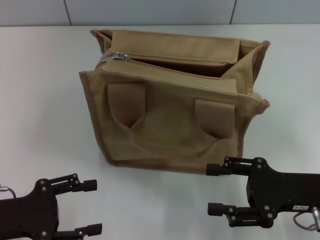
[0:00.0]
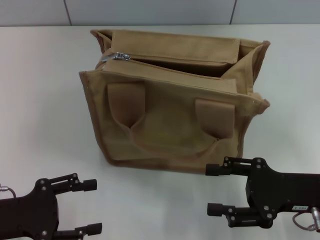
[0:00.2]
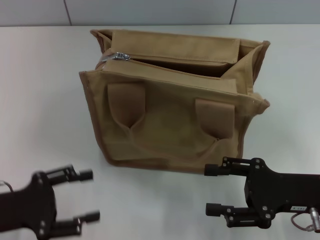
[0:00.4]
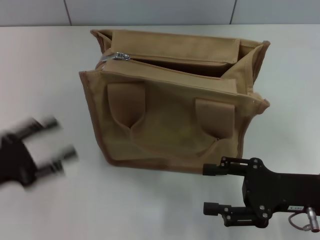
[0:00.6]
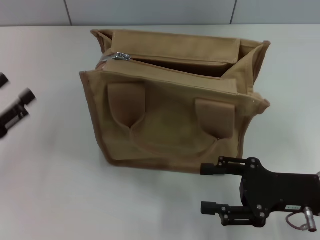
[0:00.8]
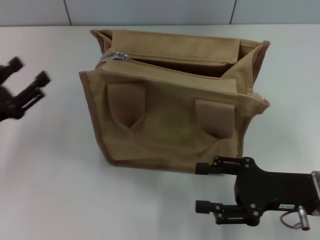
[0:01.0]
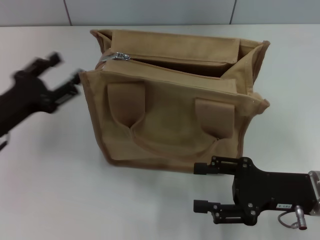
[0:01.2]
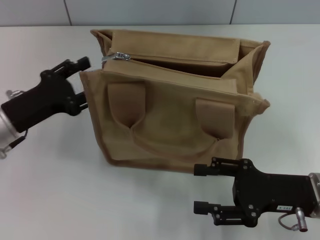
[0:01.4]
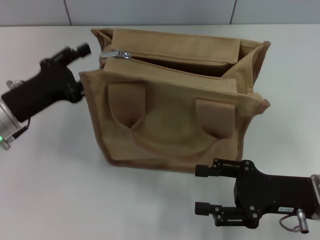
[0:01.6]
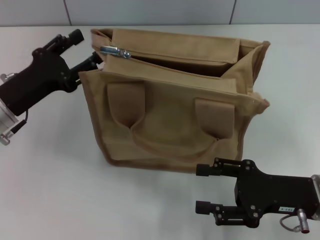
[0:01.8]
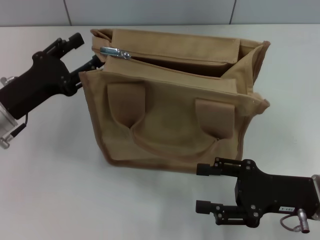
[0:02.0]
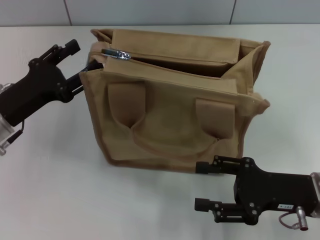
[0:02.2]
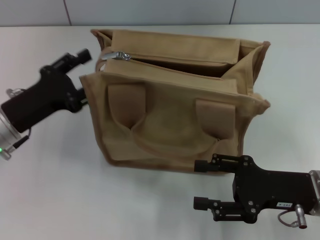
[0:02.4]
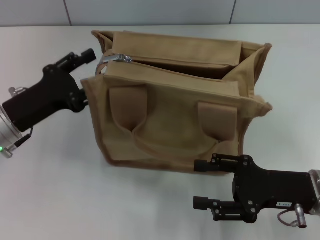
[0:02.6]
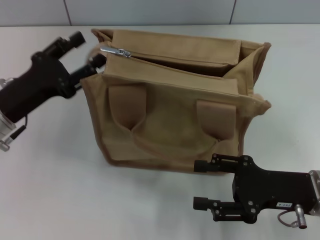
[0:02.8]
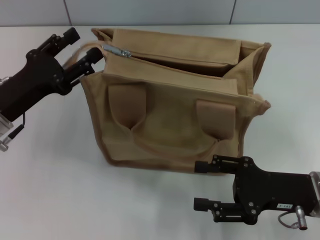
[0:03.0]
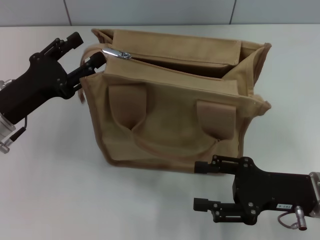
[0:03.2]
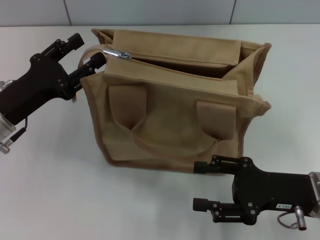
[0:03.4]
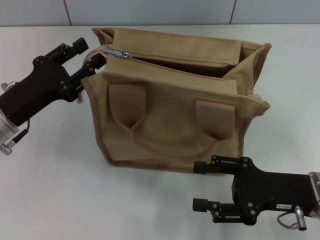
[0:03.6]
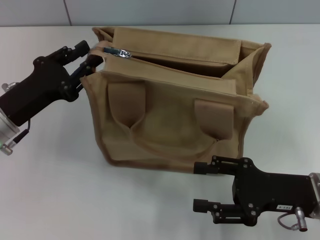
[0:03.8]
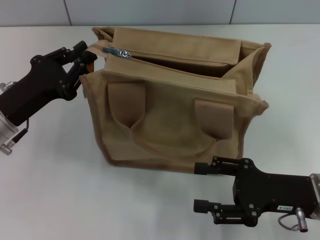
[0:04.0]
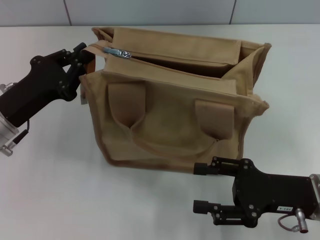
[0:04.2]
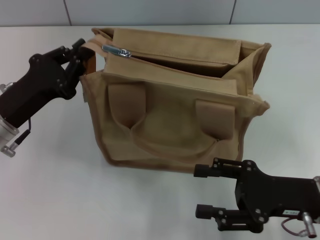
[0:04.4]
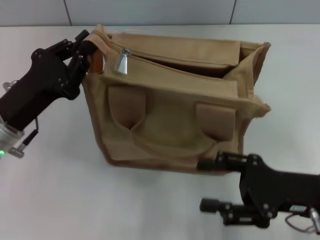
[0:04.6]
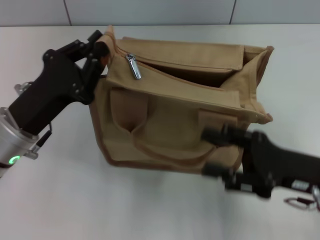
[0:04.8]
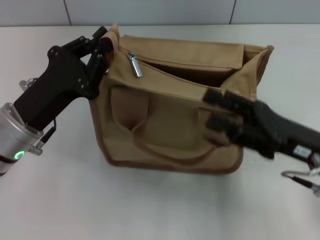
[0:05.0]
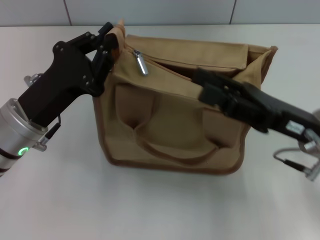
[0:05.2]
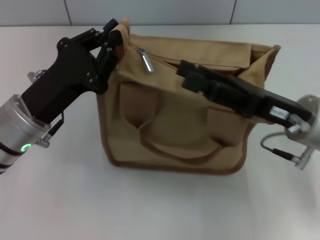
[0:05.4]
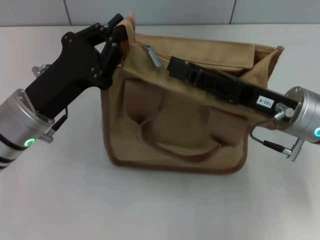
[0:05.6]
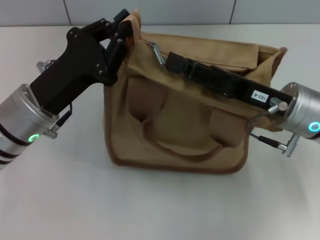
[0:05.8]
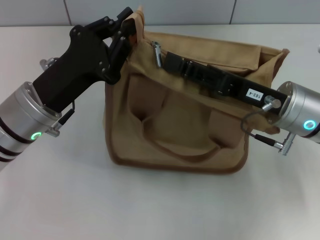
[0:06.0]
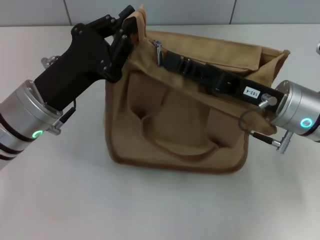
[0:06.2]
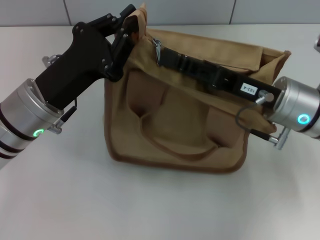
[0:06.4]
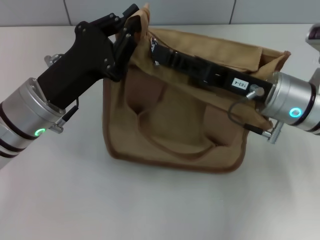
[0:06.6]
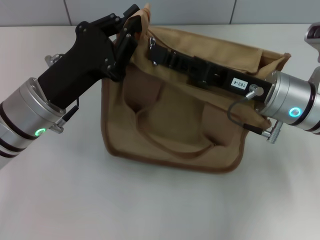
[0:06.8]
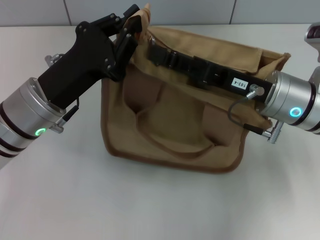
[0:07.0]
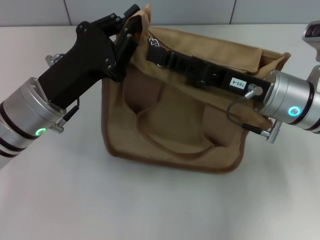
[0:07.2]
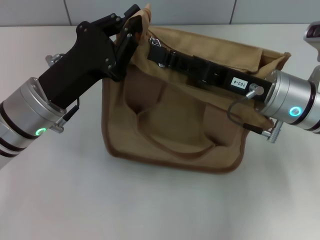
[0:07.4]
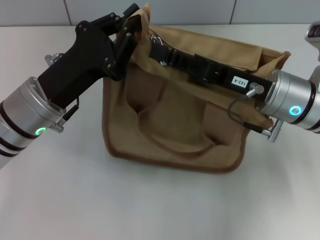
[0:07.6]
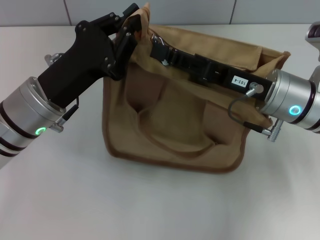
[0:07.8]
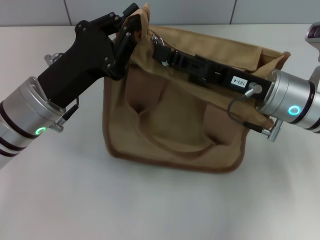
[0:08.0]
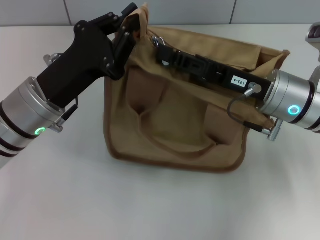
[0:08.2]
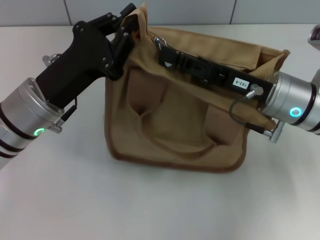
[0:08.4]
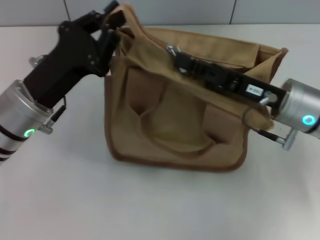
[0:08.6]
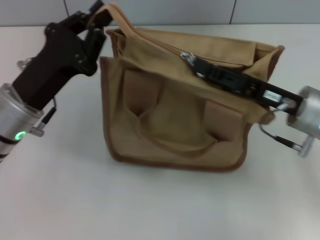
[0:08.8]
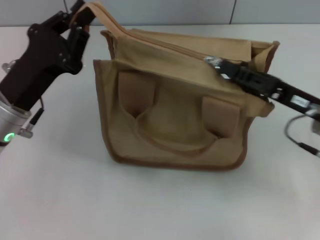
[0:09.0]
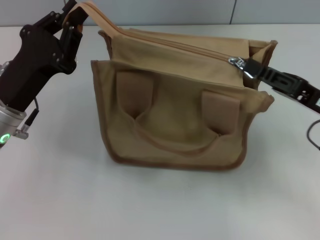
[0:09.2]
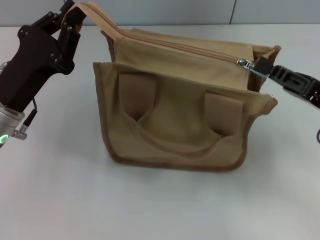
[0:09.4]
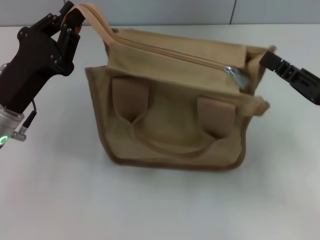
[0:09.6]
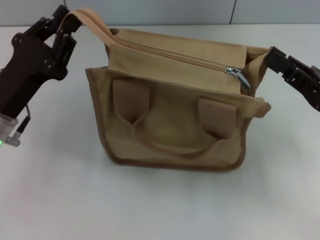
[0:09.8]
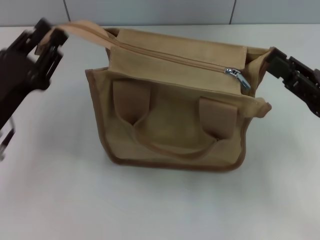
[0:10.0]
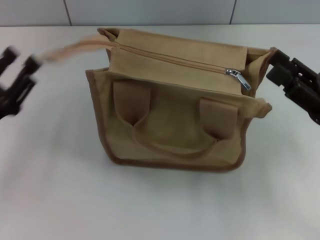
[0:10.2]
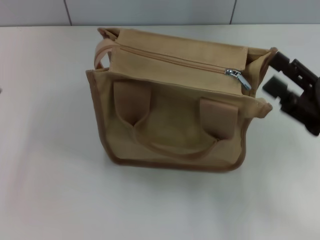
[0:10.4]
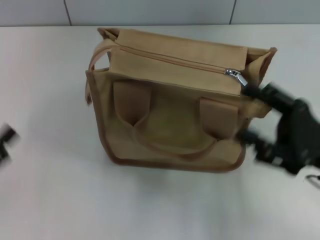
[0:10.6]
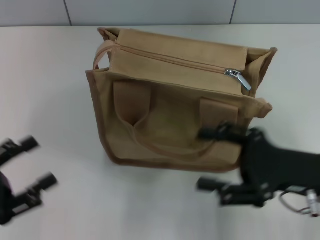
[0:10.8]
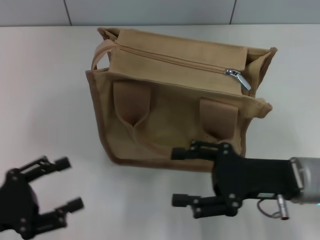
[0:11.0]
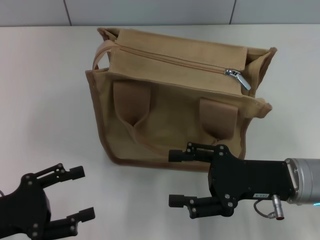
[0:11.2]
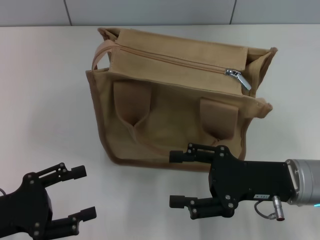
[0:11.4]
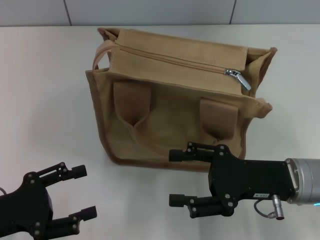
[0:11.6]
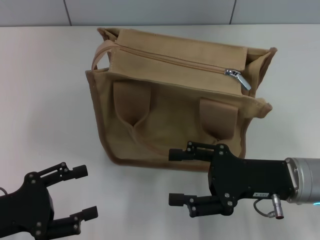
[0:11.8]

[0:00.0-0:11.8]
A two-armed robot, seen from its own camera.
Step, 0:00.0 to 0:09.6: Pull up the zipper with your right hand.
Step, 0:09.8 to 0:10.2: Grab the zipper with your left hand.
0:00.0 to 0:01.4: The left gripper is displaced forward by approximately 10 cm.
0:01.4 to 0:03.0: There are only small adjustments of the grippers.
0:03.0 to 0:04.4: The left gripper closes.
0:04.4 to 0:06.0: The left gripper heads to the right, covering some 5 cm. The right gripper shifts some 10 cm forward, to the left and upward, and closes up.
0:06.0 to 0:07.4: The grippers stay close to where they were, moving slightly.
0:07.4 to 0:08.8: The right gripper shifts by about 5 cm, and closes up.
0:08.8 to 0:10.4: The right gripper is displaced backward and to the right by about 10 cm, and opens its fingers. Meanwhile the left gripper is displaced to the left and backward by some 15 cm, and opens.
0:10.4 to 0:11.8: The right gripper moves to the left, about 5 cm.

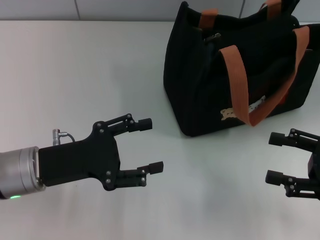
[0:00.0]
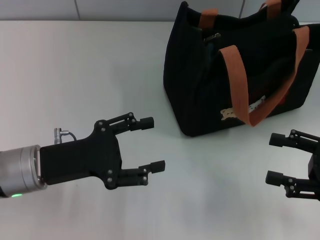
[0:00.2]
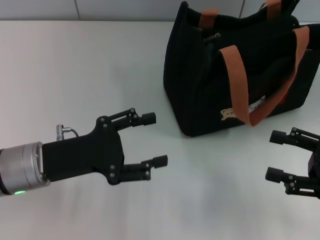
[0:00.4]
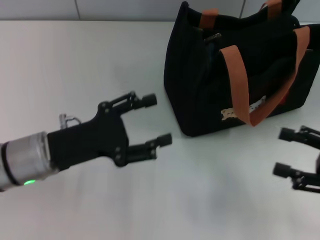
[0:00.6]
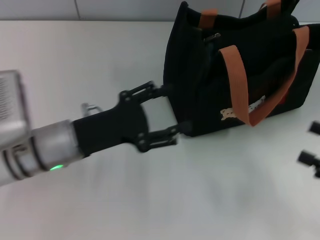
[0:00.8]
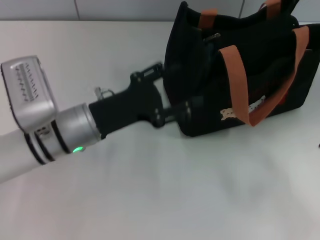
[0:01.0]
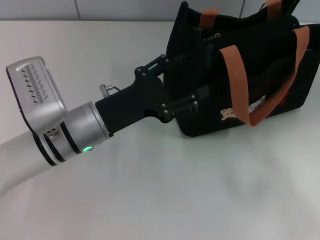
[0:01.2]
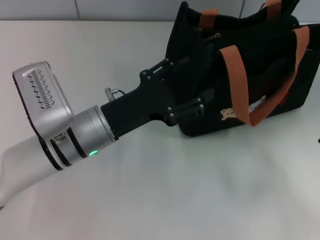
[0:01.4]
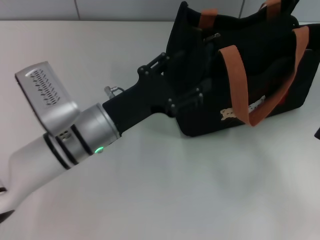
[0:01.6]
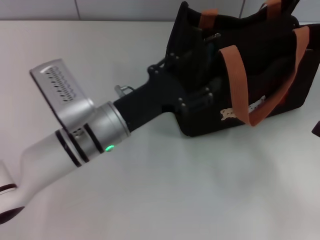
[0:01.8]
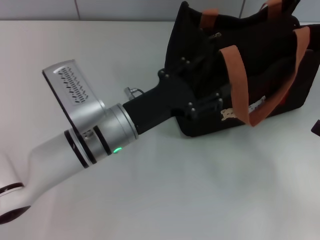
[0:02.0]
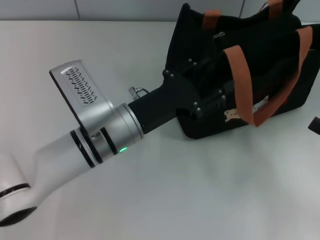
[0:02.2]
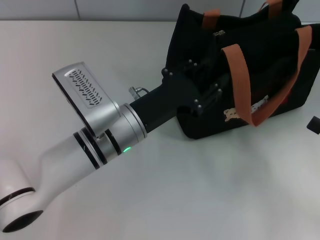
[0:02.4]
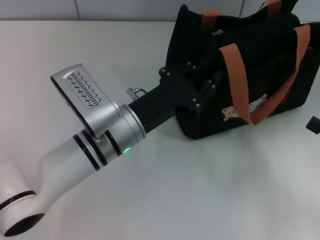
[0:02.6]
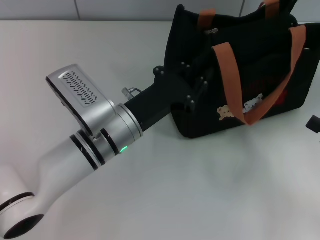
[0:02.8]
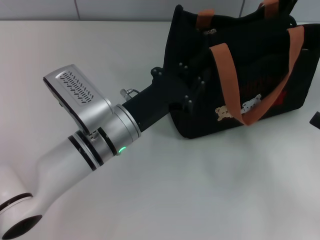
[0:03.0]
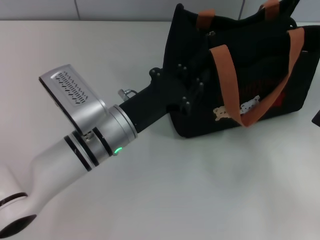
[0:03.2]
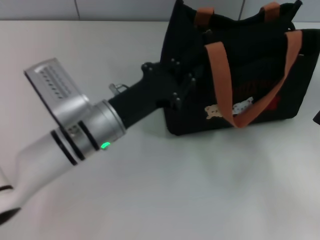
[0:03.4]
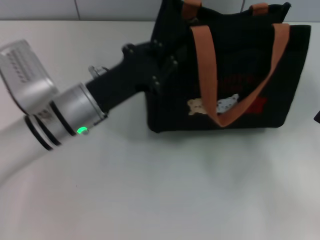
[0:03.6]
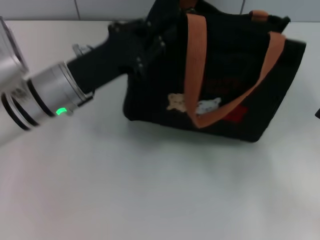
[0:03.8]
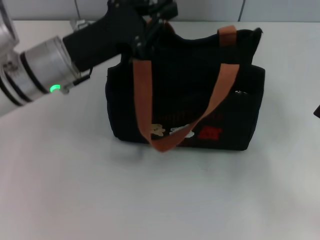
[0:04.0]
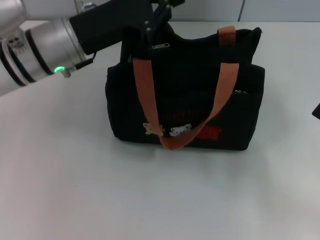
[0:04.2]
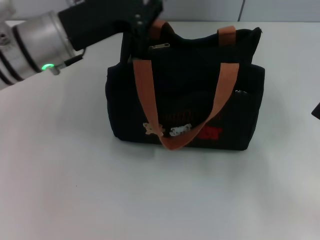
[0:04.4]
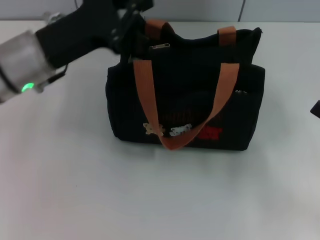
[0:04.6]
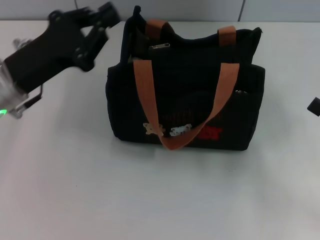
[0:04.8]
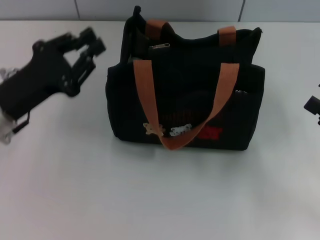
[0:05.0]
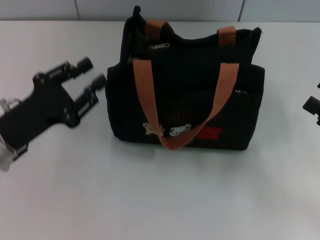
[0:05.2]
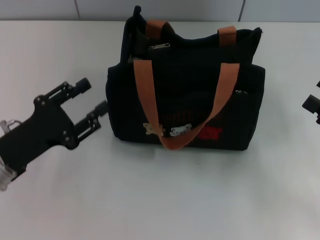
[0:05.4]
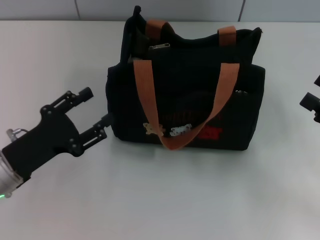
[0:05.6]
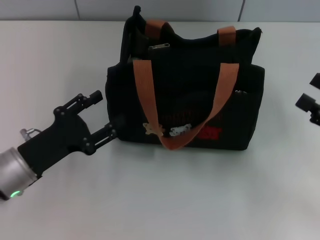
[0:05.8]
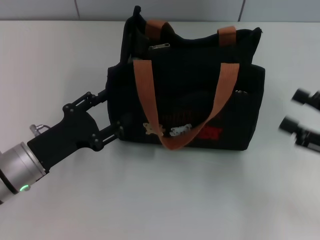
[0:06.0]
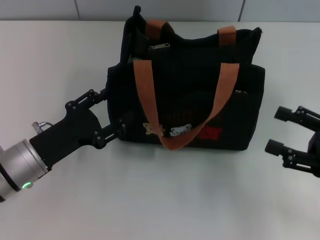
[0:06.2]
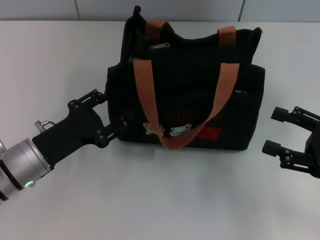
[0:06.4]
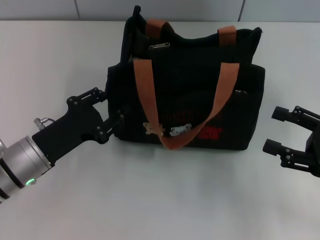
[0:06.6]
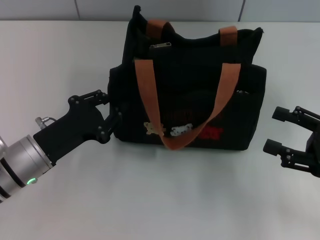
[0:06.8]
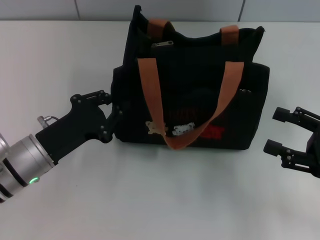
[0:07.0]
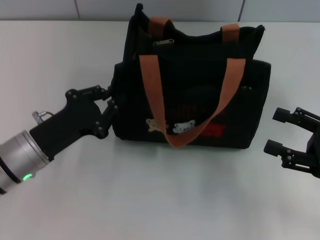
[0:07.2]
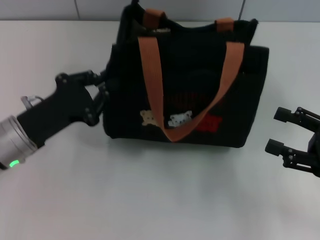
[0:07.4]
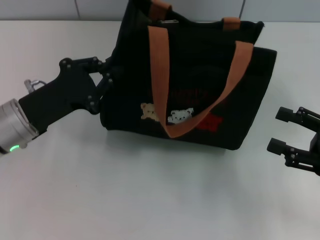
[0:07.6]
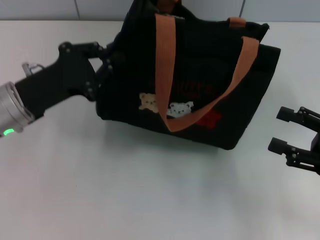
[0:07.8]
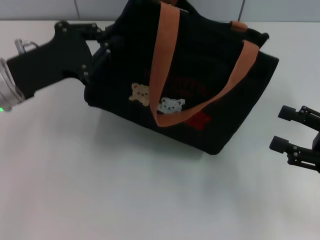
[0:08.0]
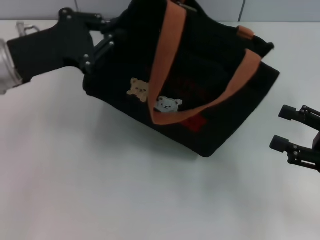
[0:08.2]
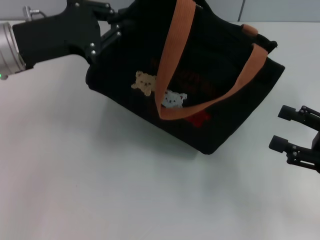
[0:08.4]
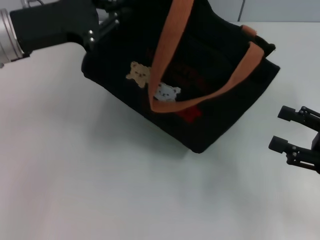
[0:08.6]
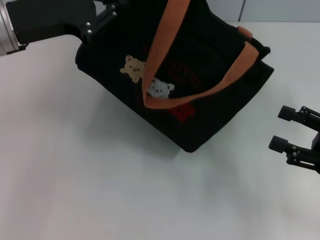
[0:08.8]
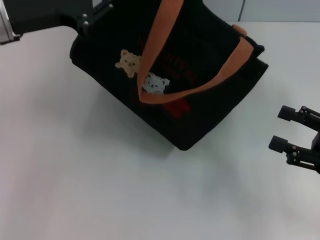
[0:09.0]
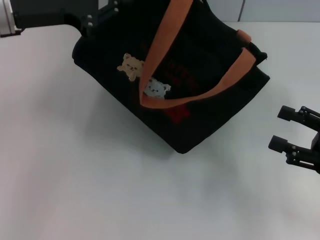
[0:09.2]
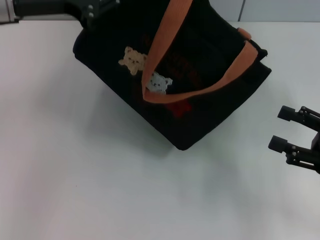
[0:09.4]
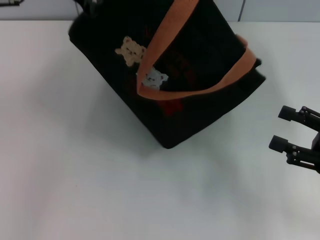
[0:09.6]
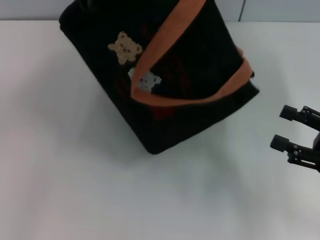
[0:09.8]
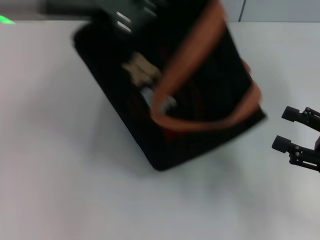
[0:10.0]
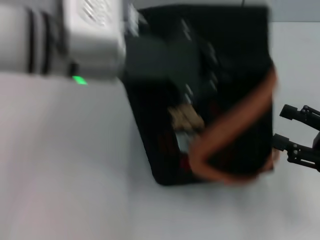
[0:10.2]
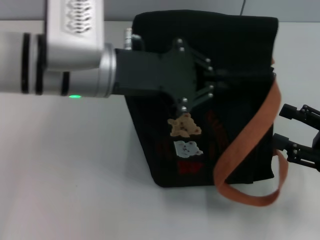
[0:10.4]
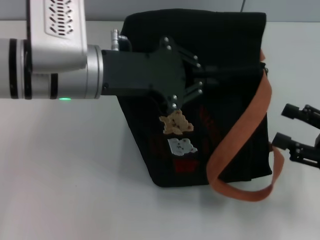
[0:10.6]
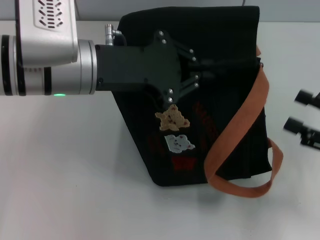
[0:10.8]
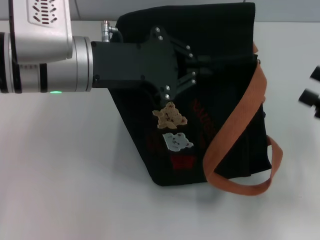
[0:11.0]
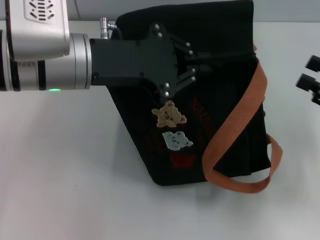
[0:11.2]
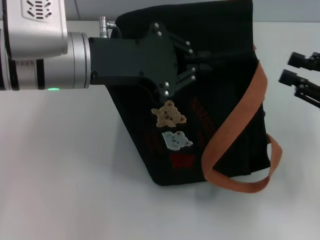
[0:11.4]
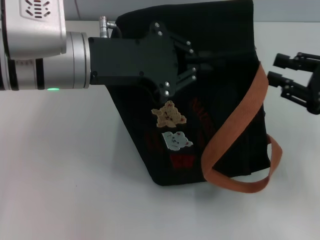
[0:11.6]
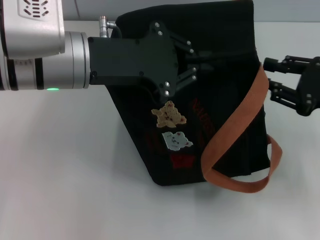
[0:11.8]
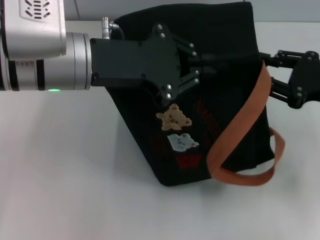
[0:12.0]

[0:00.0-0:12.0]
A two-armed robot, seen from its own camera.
0:00.0 to 0:01.6: The right gripper changes place by roughly 5 cm, while the left gripper moves to the right and forward, roughly 10 cm.
0:01.6 to 0:03.0: The left gripper closes.
0:03.0 to 0:04.4: The left gripper is displaced upward, to the left and forward by roughly 15 cm.
0:04.4 to 0:06.0: The left gripper heads downward, backward and to the left, covering approximately 20 cm, and opens up.
0:06.0 to 0:07.6: The left gripper changes place by about 5 cm, and closes.
0:07.6 to 0:09.0: The left gripper heads upward and forward, covering approximately 15 cm.
0:09.0 to 0:10.4: The left gripper goes approximately 15 cm to the right and backward.
0:10.4 to 0:12.0: The right gripper shifts approximately 10 cm forward, and closes its fingers.
